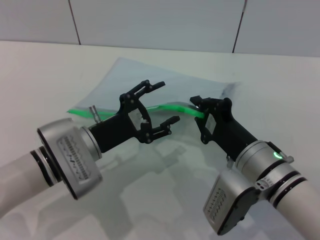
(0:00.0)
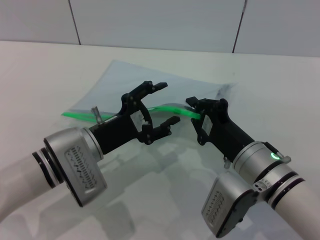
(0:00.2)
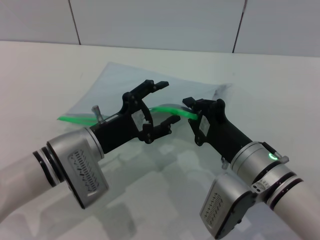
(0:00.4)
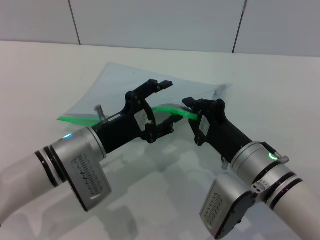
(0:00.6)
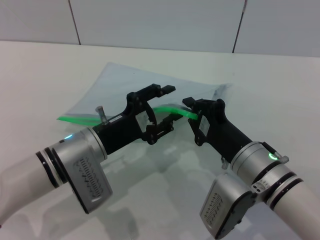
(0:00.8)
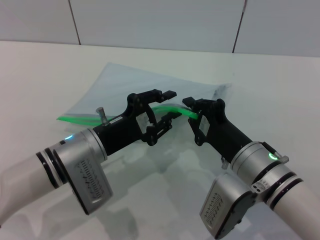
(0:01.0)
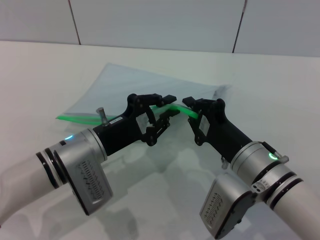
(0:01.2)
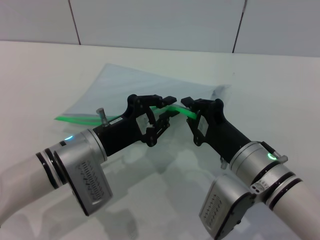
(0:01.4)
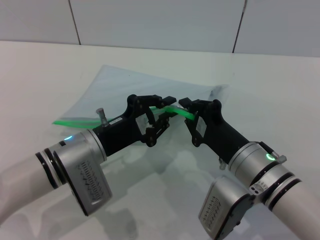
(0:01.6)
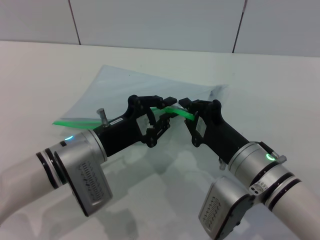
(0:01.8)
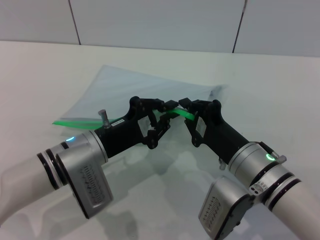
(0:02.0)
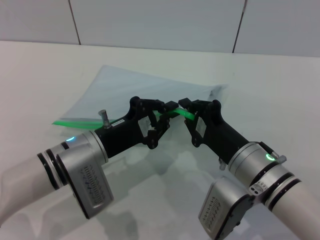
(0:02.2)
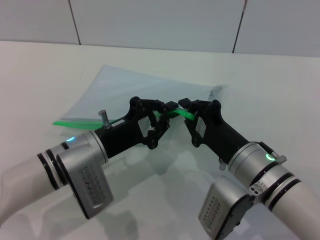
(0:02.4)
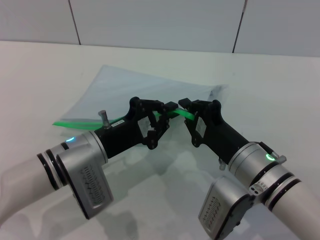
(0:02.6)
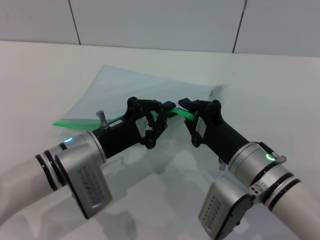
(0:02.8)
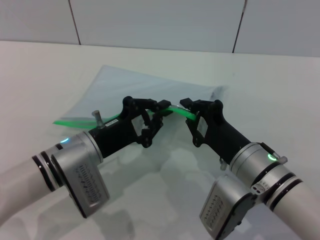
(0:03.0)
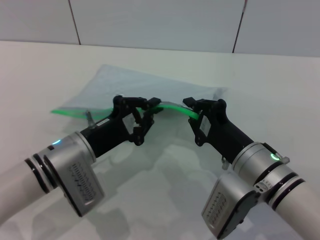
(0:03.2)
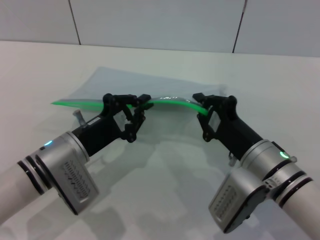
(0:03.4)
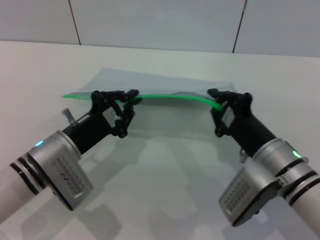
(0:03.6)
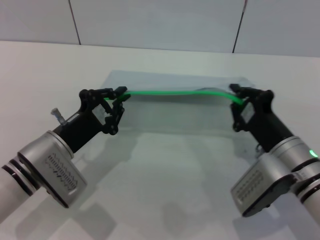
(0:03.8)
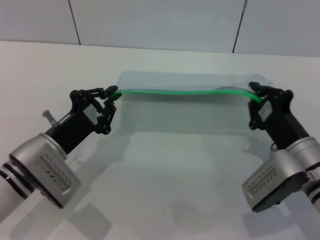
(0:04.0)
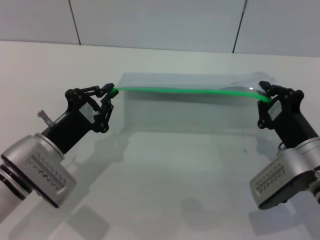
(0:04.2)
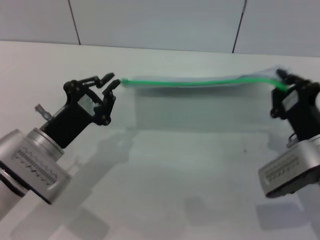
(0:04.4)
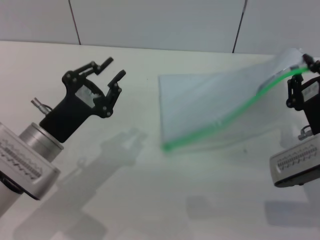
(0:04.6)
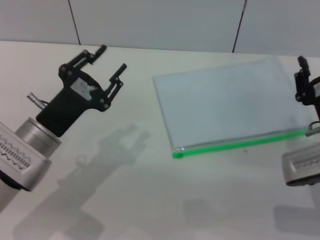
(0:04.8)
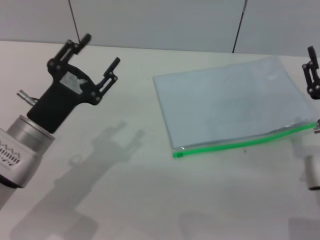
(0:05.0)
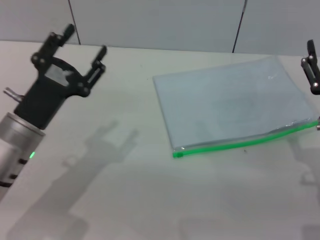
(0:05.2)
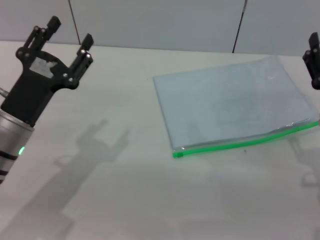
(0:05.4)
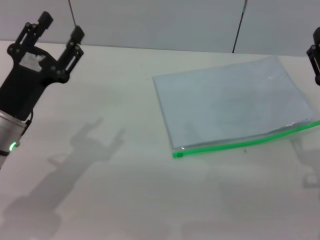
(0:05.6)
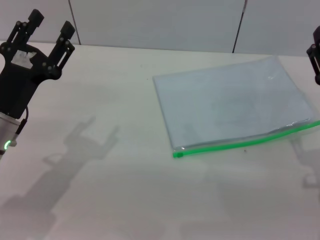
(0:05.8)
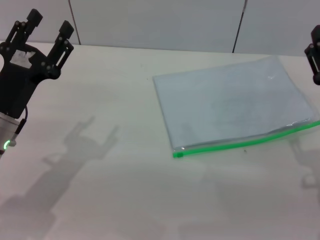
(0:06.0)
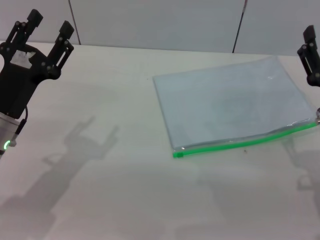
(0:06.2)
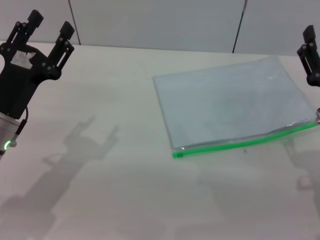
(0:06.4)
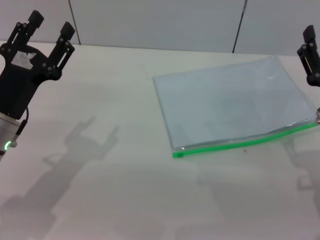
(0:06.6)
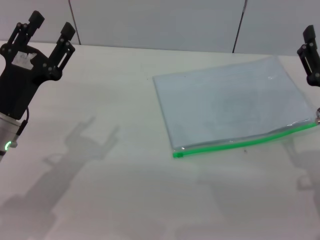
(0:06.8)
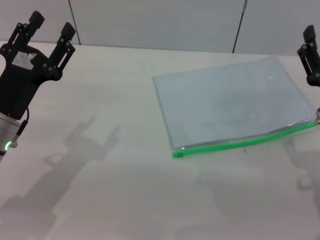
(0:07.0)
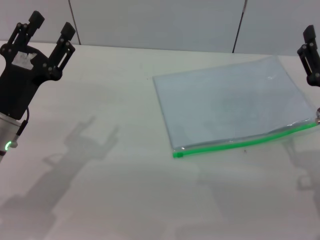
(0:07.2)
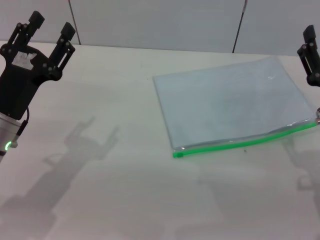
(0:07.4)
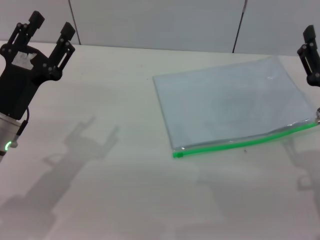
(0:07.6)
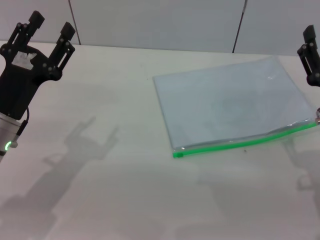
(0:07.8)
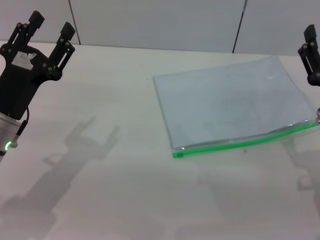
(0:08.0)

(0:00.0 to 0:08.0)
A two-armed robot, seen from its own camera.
Step, 0:00.0 - 0:04.6: Pulling up the zipper on the transparent plastic bag with the left gripper to close it.
Step, 0:04.8 - 0:05.6: Place the transparent plastic bag.
0:00.0 - 0:01.6: The left gripper closes its fingers.
0:01.6 - 0:03.2: The grippers stay close to where they were, moving slightly.
0:03.2 - 0:04.8: The right gripper shifts some 10 cm to the right, and opens its fingers.
0:04.8 - 0:06.4: The right gripper opens. Meanwhile the left gripper opens up.
0:06.4 - 0:08.0: Both grippers stay put.
